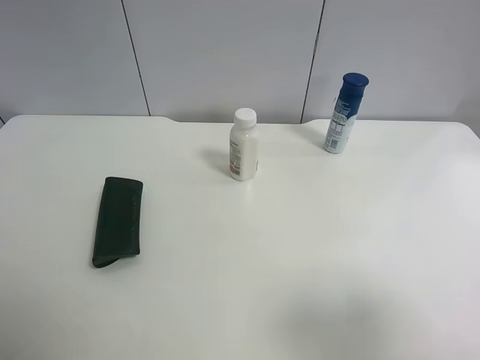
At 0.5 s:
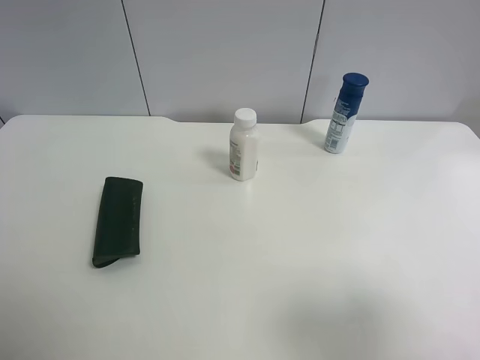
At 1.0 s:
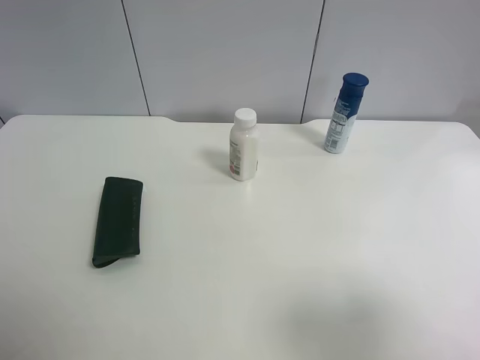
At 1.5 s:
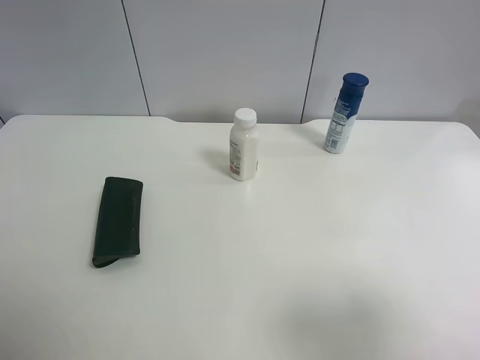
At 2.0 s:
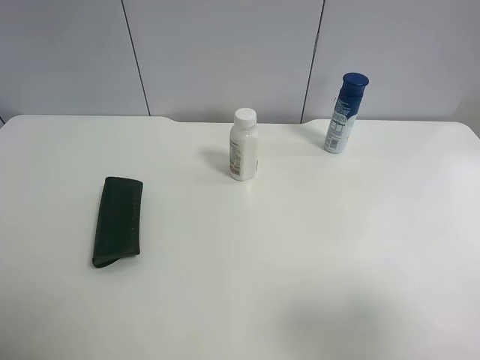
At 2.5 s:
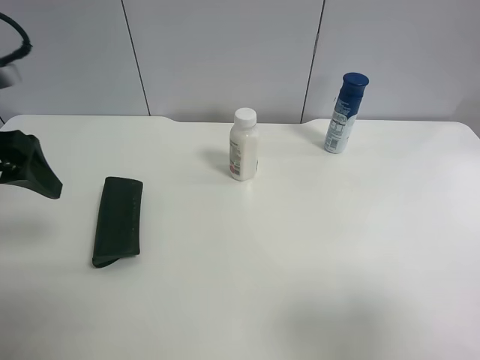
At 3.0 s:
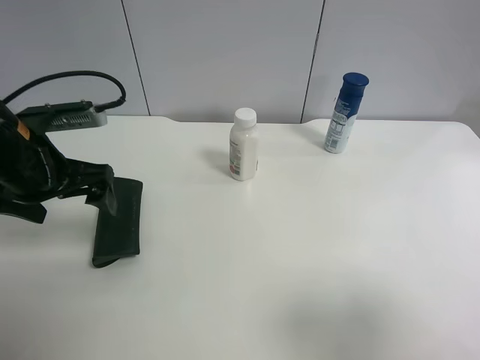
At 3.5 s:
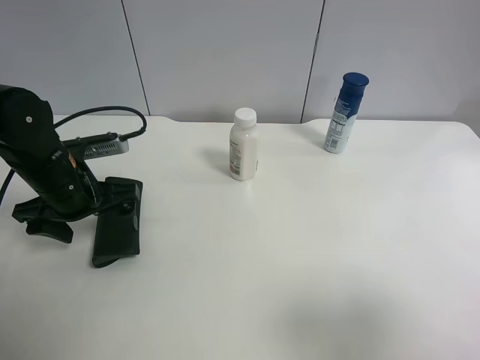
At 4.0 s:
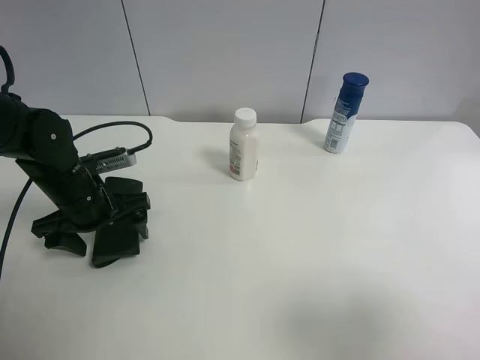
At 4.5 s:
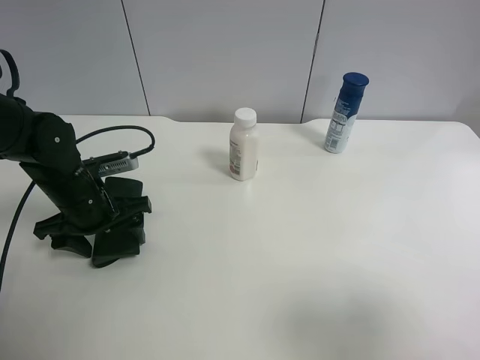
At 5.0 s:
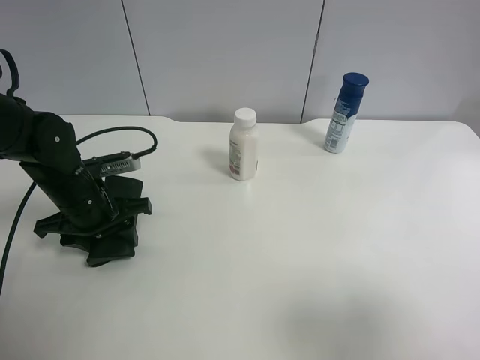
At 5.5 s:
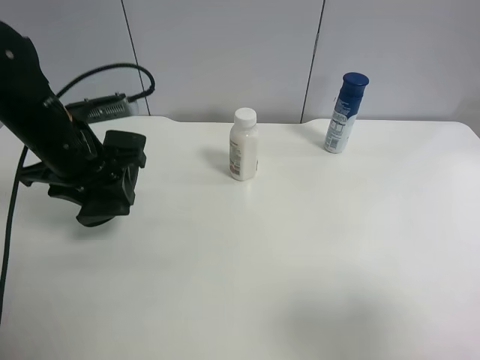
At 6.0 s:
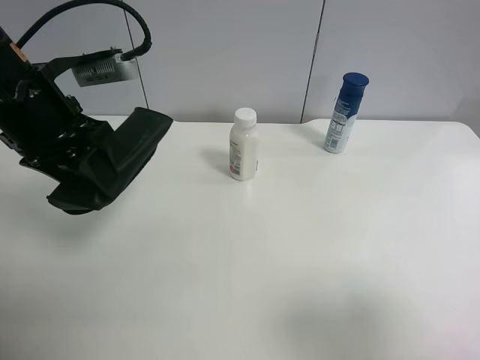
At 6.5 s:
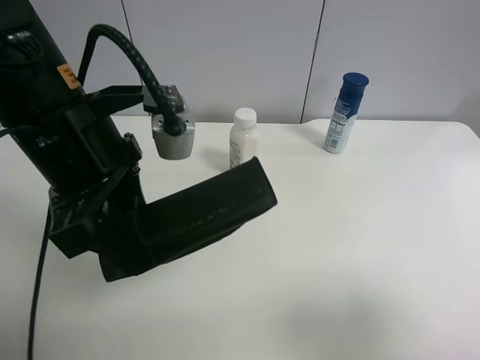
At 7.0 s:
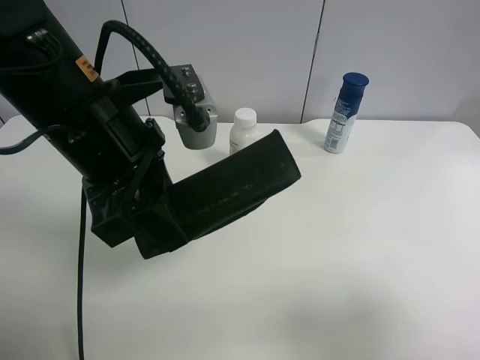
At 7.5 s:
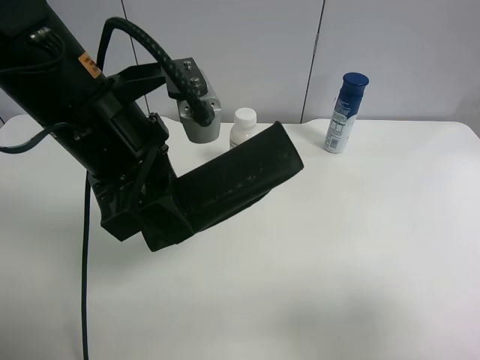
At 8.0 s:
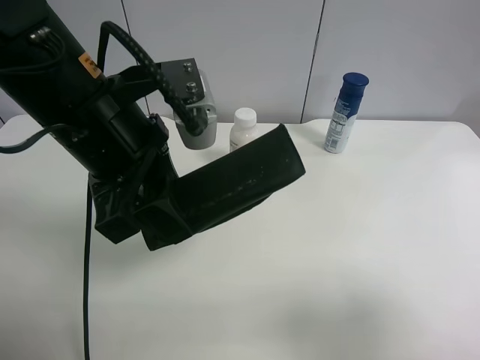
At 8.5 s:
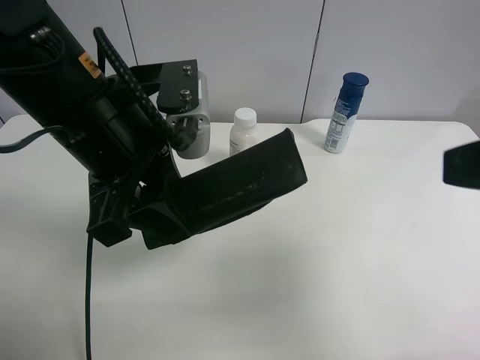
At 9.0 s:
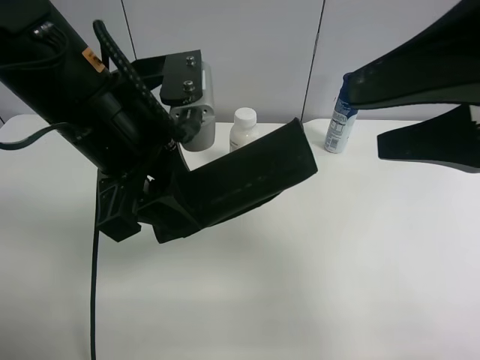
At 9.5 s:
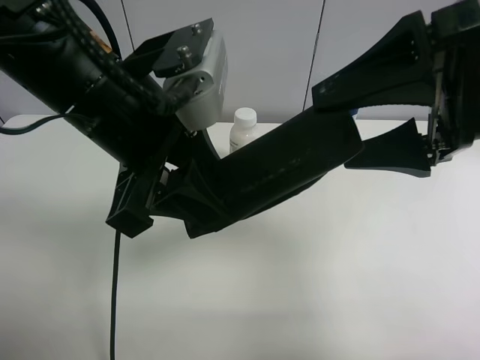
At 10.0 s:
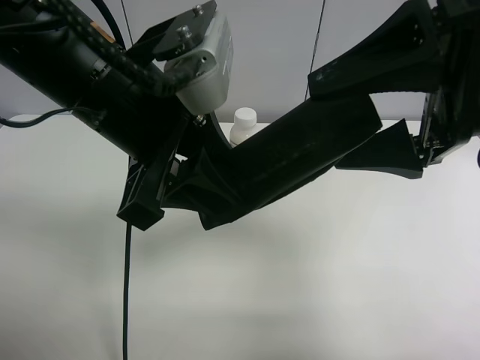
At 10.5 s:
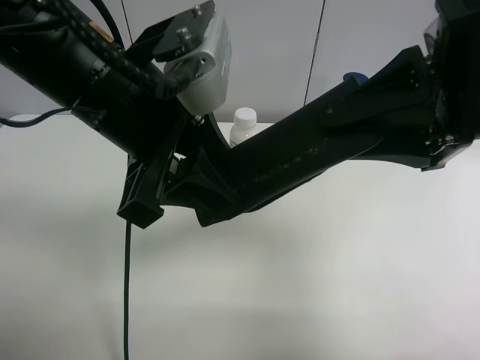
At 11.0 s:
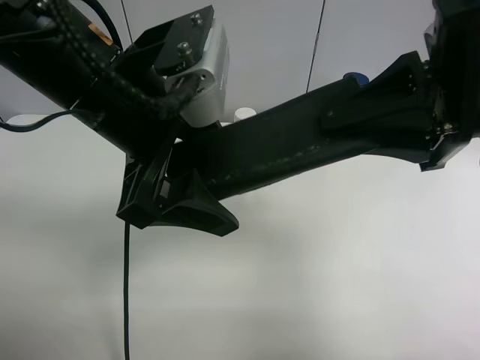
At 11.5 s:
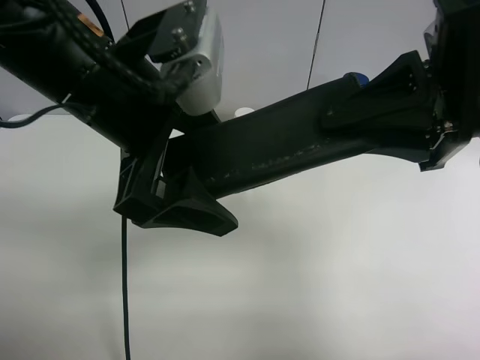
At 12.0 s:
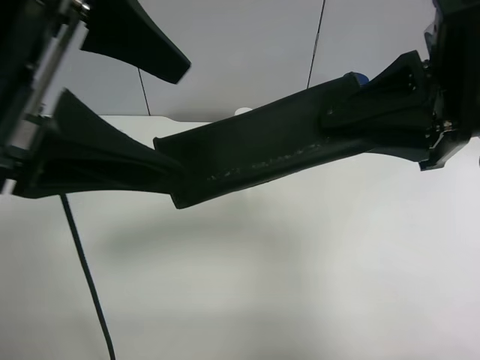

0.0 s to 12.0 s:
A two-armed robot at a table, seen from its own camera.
Task of the whole recording: use the left gripper to pick up the item and transfer it from the left gripper to the right gripper.
2.0 to 4.0 s: The left gripper shifts roughly 30 cm downward, forward and to the right.
4.0 to 6.0 s: The left gripper shifts approximately 15 cm upward, and closes its fingers.
6.0 to 8.0 s: The left gripper moves to the right and backward, about 10 cm.
8.0 to 10.0 s: The right gripper shifts approximately 20 cm forward and to the left.
10.0 to 12.0 s: The right gripper closes its fingers, while the left gripper shifts about 10 cm upward, to the left and backward, and opens its fingers.

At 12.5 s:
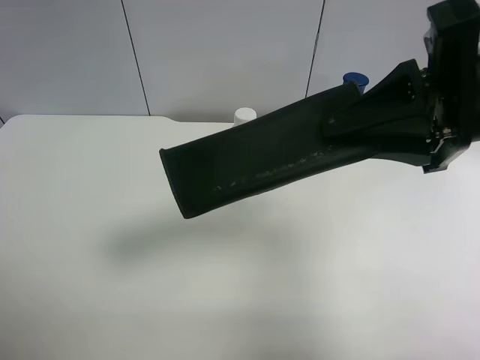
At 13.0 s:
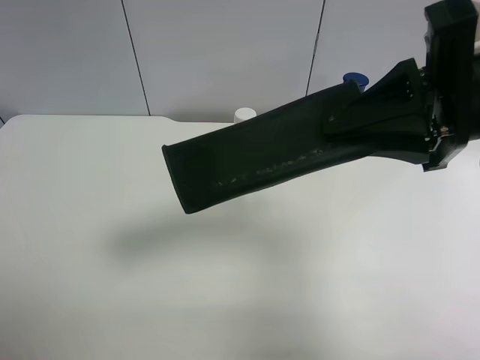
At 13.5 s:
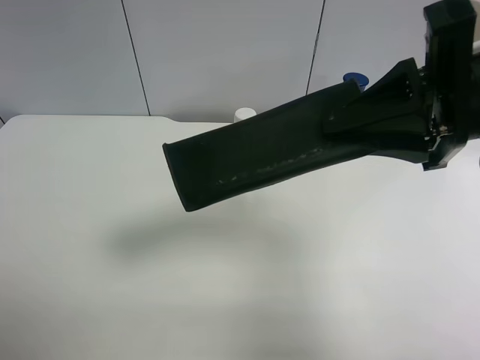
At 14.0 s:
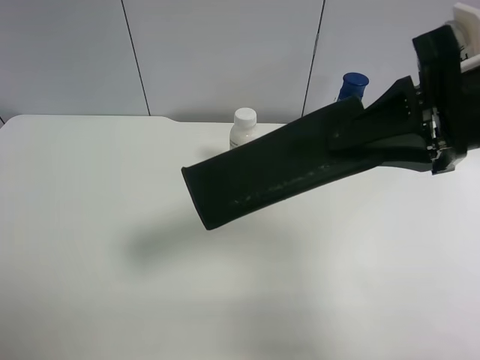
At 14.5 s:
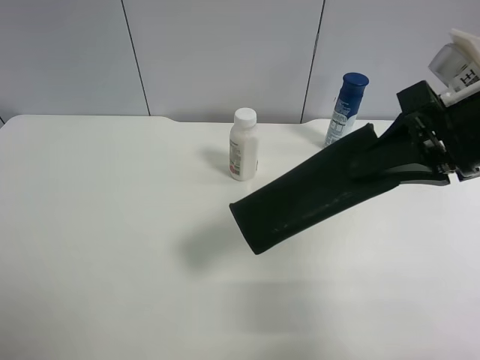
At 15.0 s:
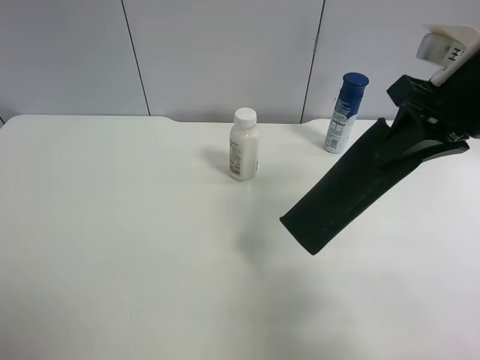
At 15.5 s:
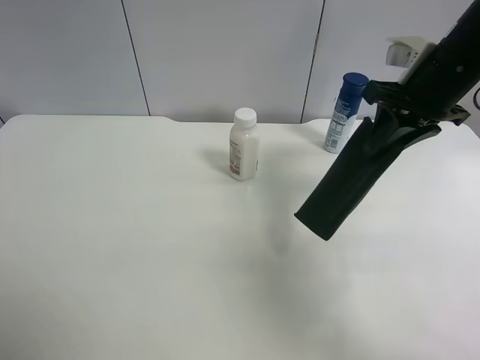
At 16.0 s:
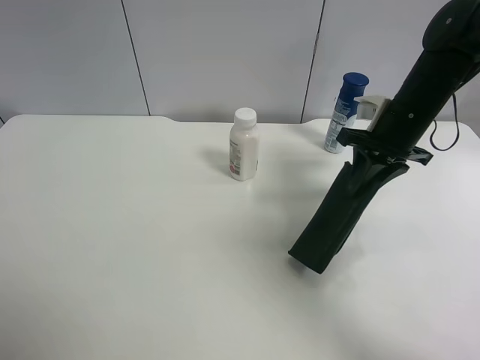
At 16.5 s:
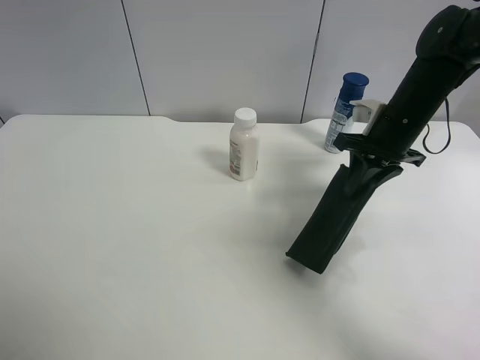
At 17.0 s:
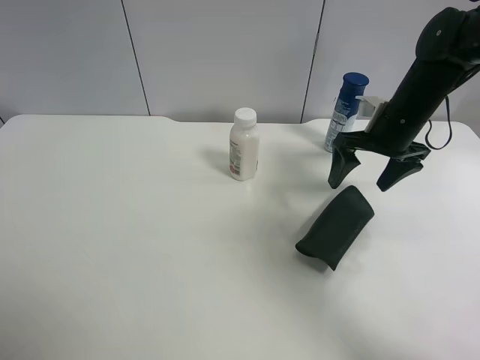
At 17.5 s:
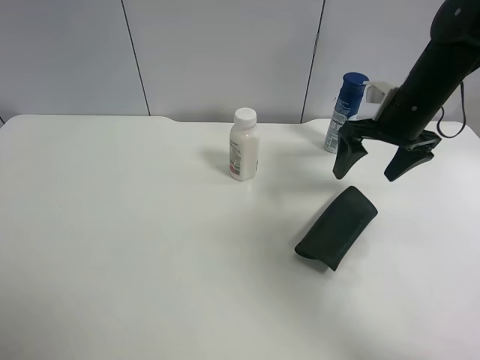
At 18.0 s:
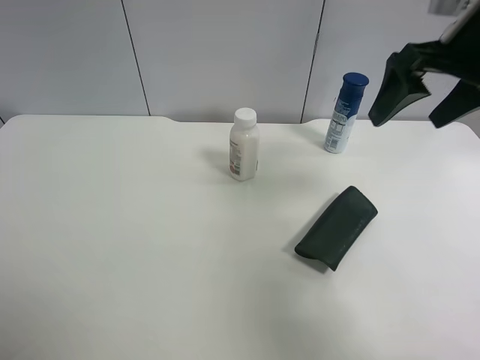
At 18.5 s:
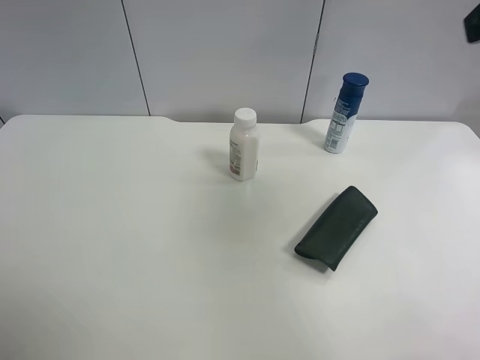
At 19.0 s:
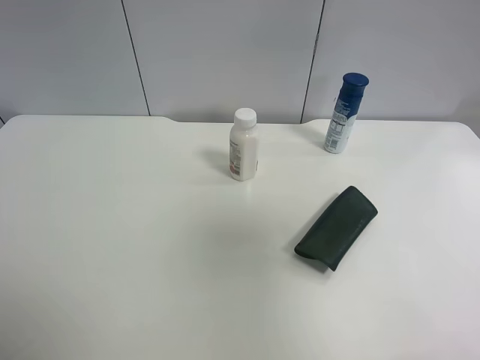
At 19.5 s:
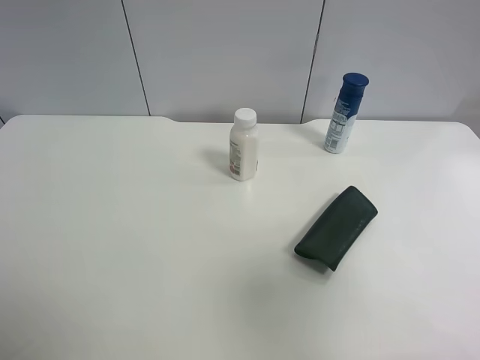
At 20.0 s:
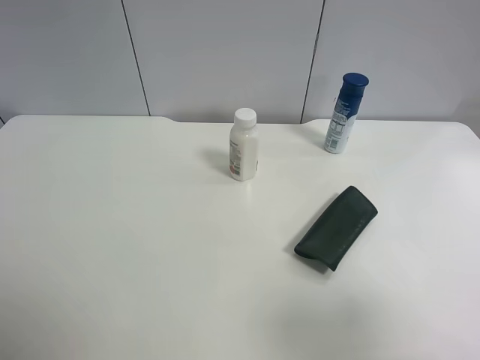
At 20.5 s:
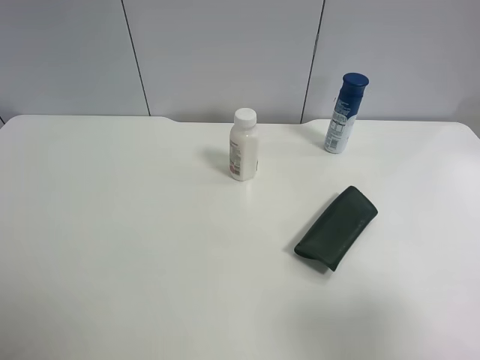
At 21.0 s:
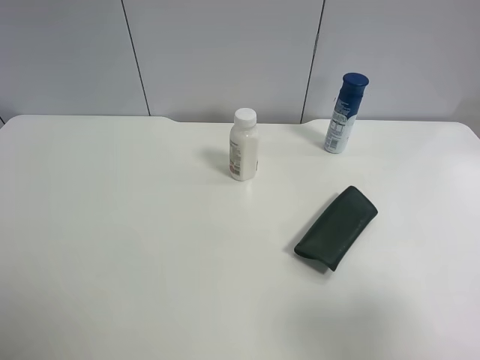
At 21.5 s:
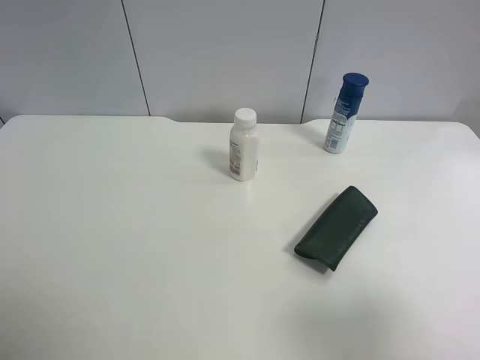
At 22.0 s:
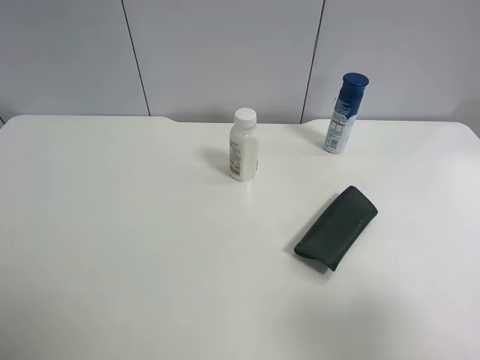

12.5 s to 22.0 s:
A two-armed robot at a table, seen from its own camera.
Task of the whole recording: use the left gripper to pick up the item and transfer it from the left gripper to the right gripper.
12.5 to 14.5 s: The left gripper is displaced downward, backward and to the left by about 15 cm.
14.5 to 16.5 s: The right gripper travels forward and downward by about 20 cm.
16.5 to 18.0 s: The right gripper travels upward and backward by about 15 cm, and opens its fingers.
18.0 to 20.0 s: The right gripper is displaced backward by approximately 30 cm.
